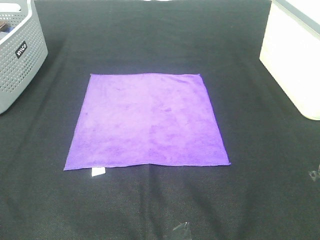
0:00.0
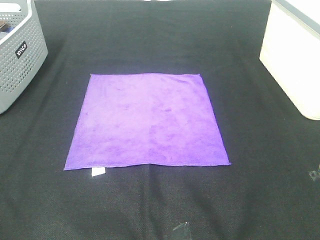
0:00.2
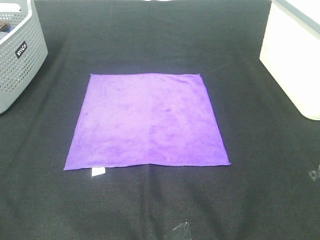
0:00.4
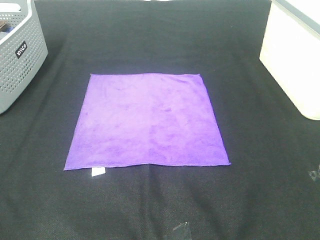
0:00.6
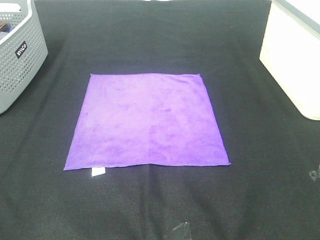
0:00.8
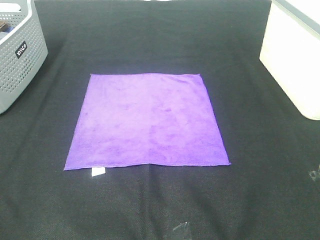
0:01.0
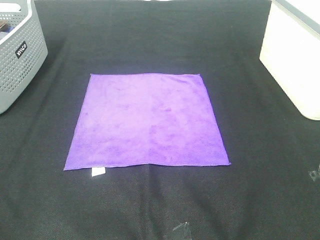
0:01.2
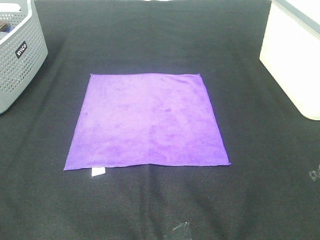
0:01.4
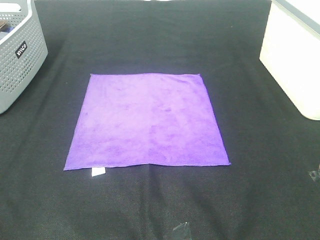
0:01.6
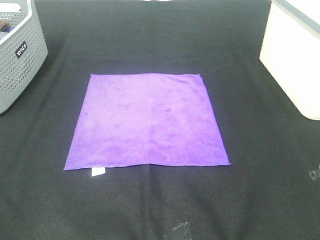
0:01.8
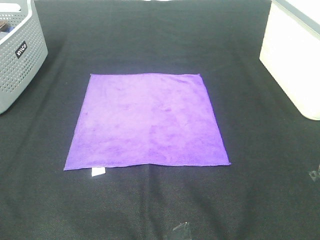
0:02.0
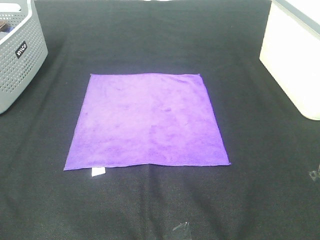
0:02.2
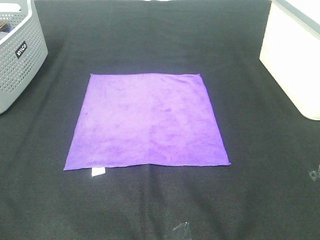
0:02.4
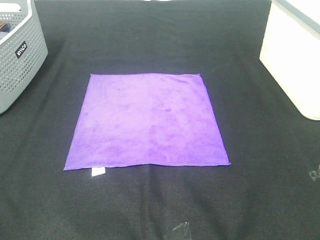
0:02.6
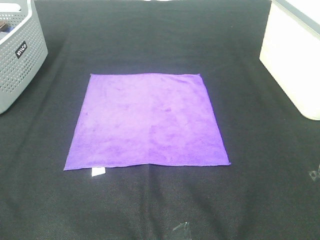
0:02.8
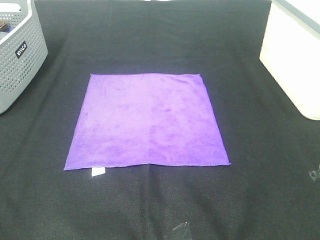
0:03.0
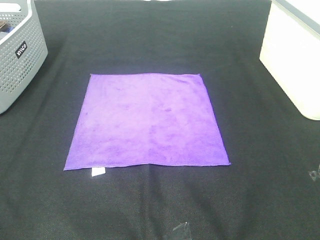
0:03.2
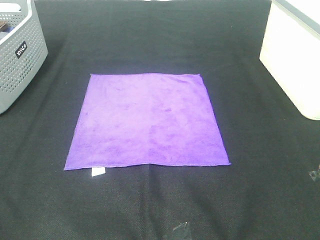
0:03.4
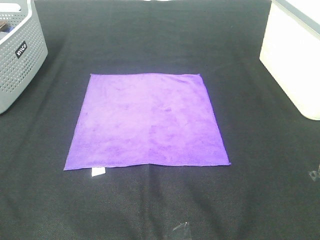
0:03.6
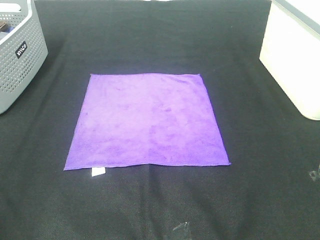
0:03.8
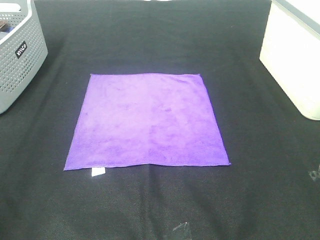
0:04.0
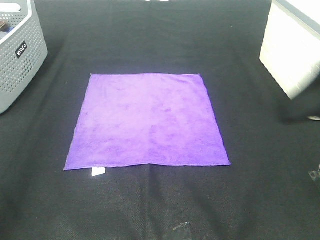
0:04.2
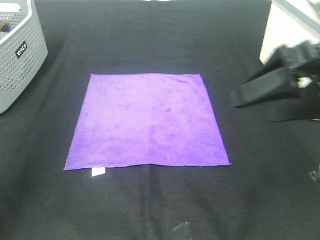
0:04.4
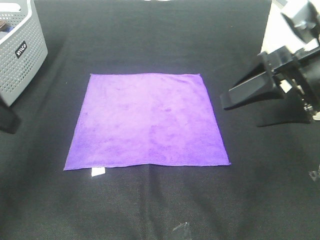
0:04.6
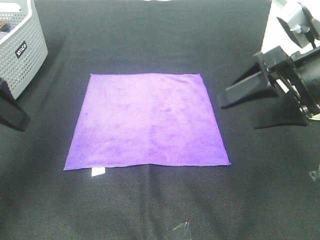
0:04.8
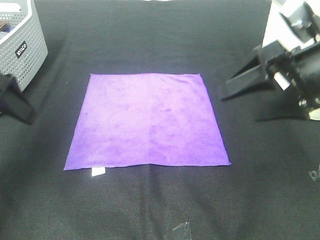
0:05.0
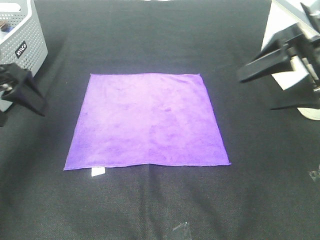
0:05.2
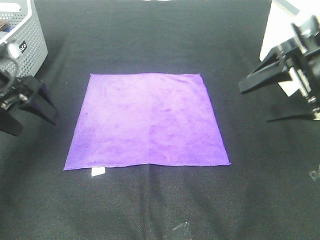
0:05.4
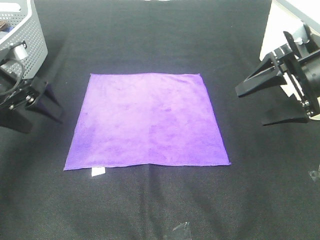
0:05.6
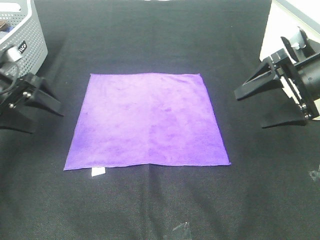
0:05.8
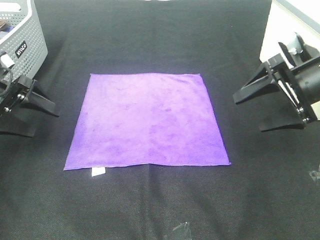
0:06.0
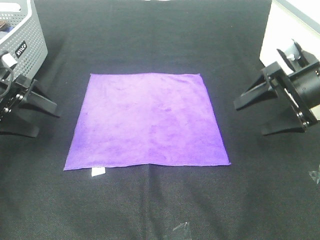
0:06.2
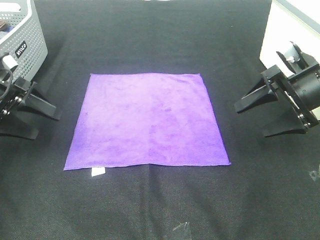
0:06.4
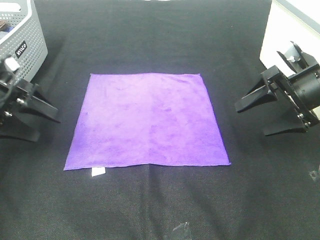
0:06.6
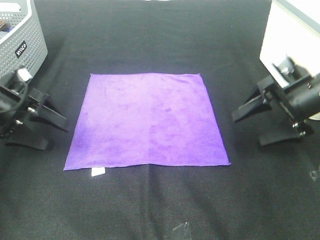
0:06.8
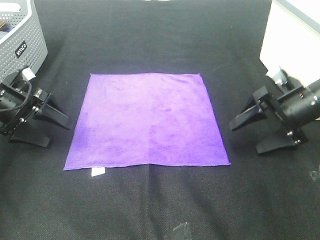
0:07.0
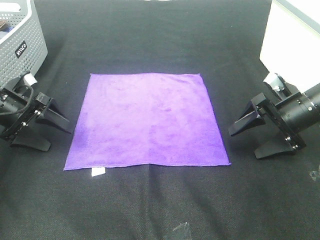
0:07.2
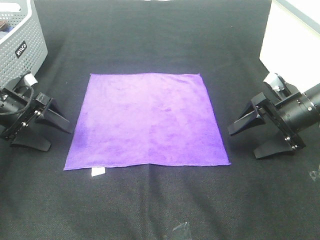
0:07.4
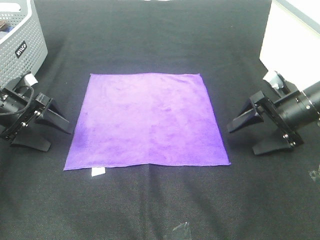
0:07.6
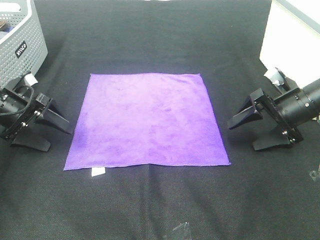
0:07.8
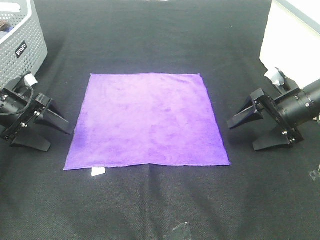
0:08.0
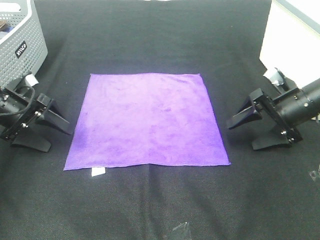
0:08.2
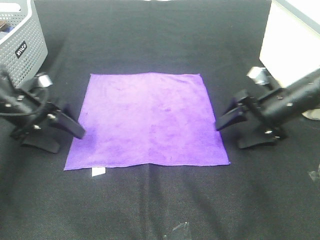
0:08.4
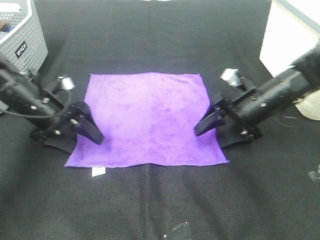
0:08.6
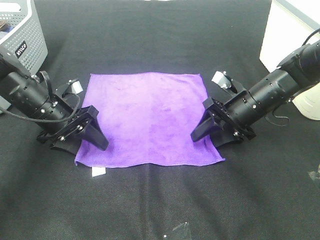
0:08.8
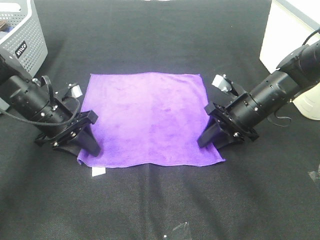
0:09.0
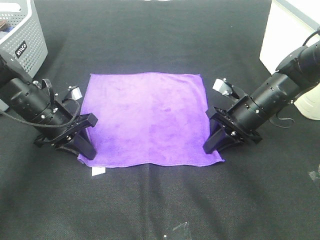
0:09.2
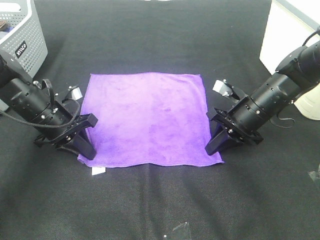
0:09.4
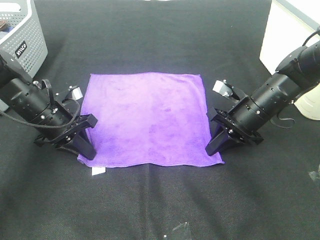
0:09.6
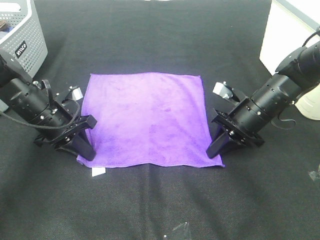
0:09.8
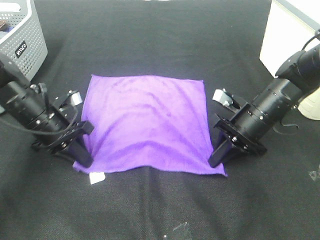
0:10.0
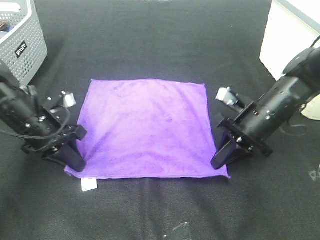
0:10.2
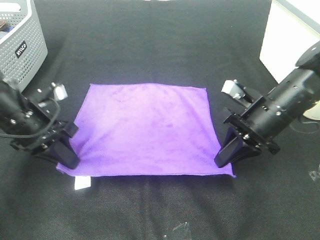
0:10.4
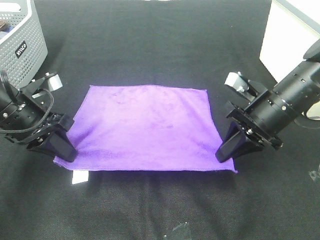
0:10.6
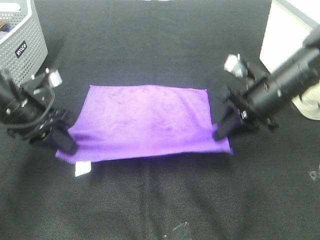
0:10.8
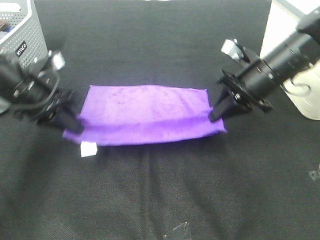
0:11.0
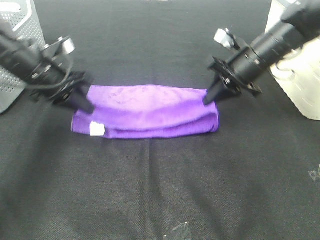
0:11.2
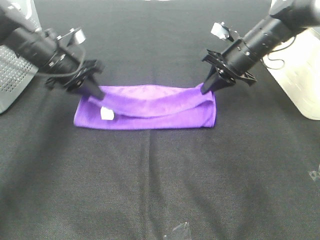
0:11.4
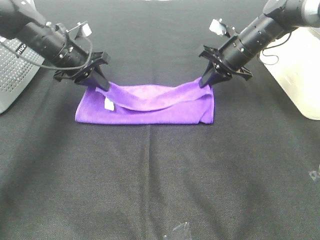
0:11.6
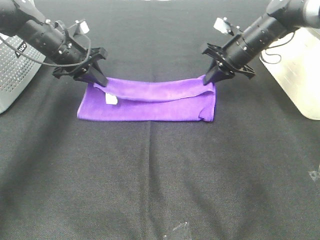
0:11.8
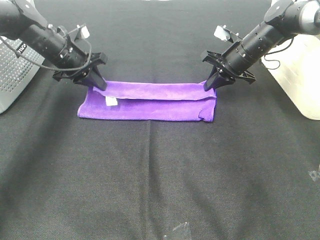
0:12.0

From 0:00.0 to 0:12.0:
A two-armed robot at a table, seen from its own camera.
Task of the whole recording: Fold towels.
Step, from 0:00.0 to 0:09.4: Left hand: grab the bottom left corner of purple towel.
Step, from 0:00.0 to 0:09.4: Right hand: grab the bottom right corner of purple towel.
From 0:00.0 to 0:03.0: Neither gripper changes place.
From 0:03.0 to 0:04.4: The grippers both shift forward by approximately 20 cm.
From 0:04.4 to 0:06.0: The left gripper goes about 20 cm forward and downward, while the right gripper heads forward, downward and to the right, covering some 15 cm.
From 0:06.0 to 0:07.6: The right gripper is displaced downward by about 10 cm. The left gripper moves roughly 5 cm.
From 0:07.6 to 0:09.0: The right gripper goes some 10 cm to the left, and closes up. The left gripper shifts roughly 10 cm to the right, and closes.
From 0:09.0 to 0:10.4: Both grippers travel together backward, approximately 5 cm. The right gripper closes up.
From 0:10.4 to 0:12.0: Both grippers move forward, about 20 cm.

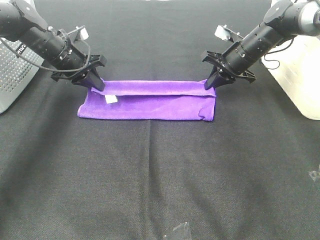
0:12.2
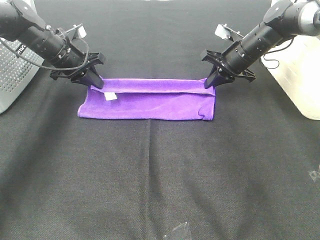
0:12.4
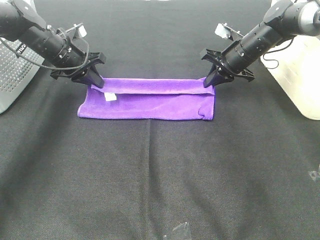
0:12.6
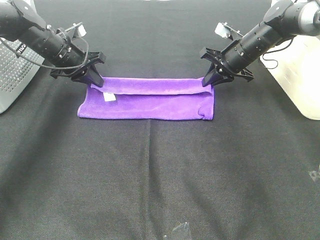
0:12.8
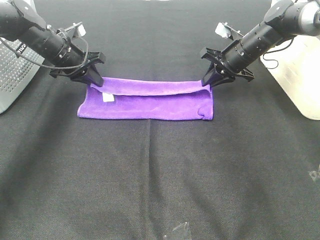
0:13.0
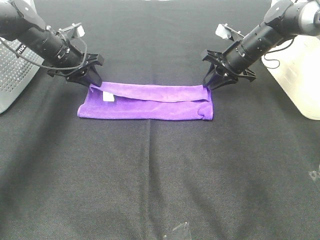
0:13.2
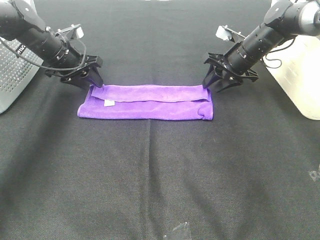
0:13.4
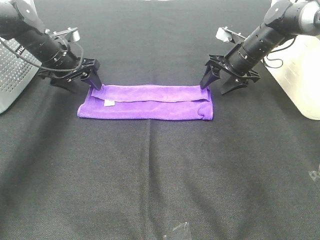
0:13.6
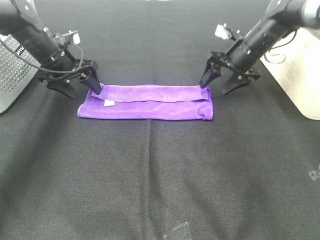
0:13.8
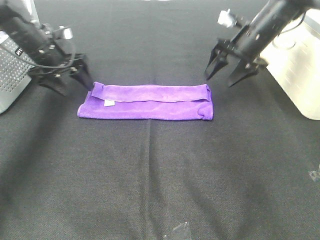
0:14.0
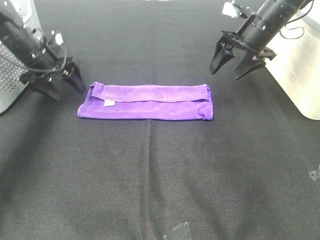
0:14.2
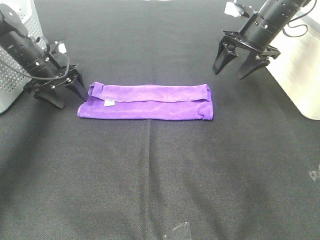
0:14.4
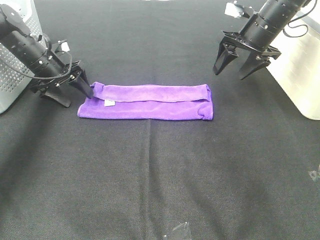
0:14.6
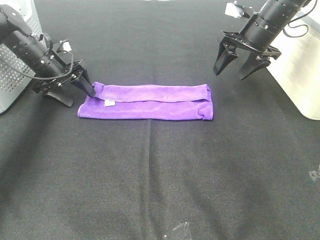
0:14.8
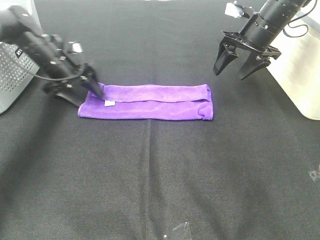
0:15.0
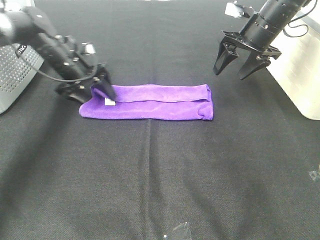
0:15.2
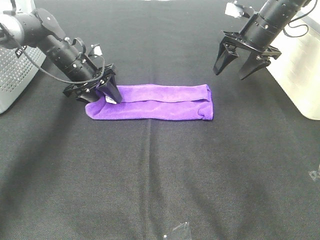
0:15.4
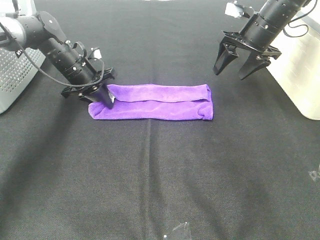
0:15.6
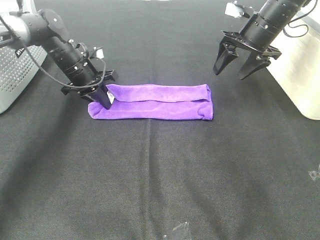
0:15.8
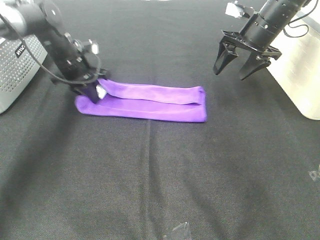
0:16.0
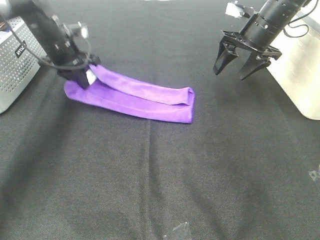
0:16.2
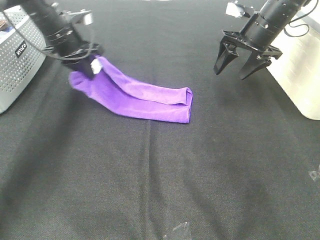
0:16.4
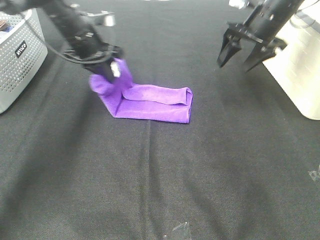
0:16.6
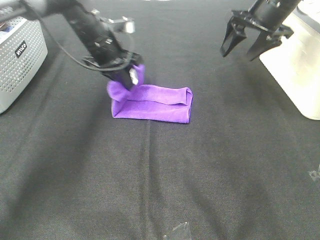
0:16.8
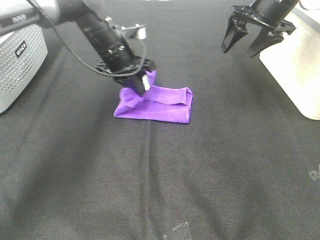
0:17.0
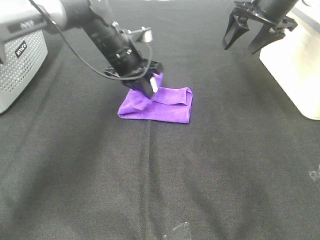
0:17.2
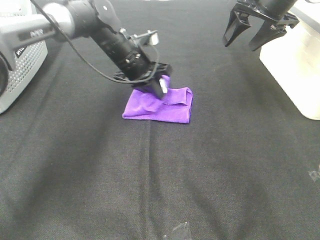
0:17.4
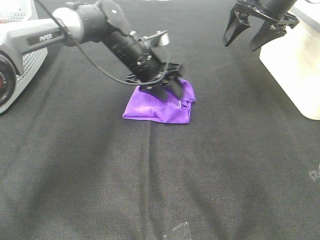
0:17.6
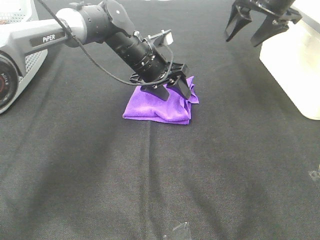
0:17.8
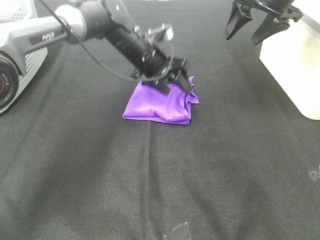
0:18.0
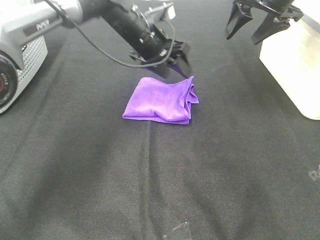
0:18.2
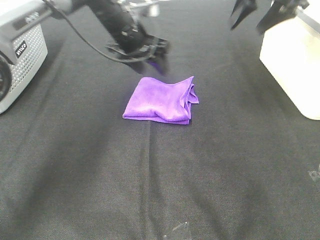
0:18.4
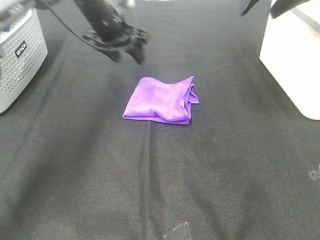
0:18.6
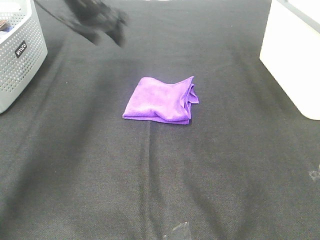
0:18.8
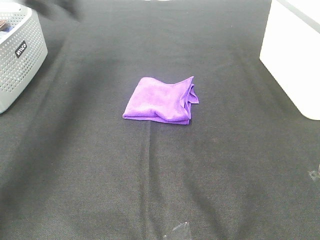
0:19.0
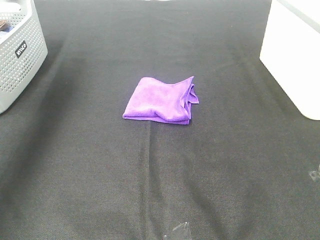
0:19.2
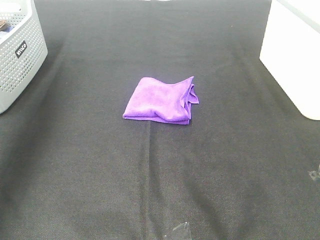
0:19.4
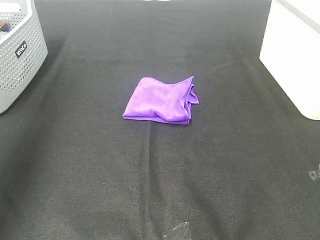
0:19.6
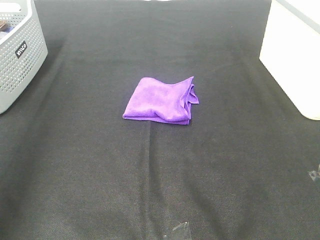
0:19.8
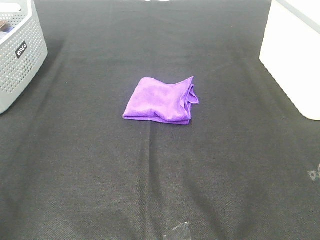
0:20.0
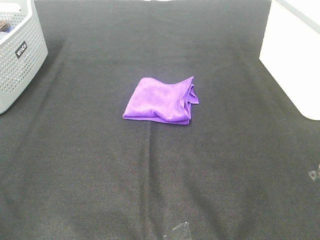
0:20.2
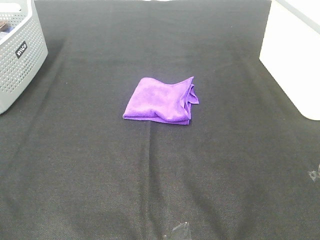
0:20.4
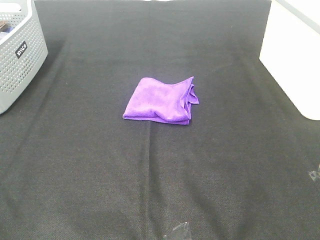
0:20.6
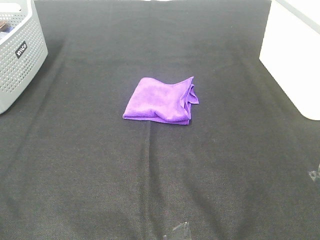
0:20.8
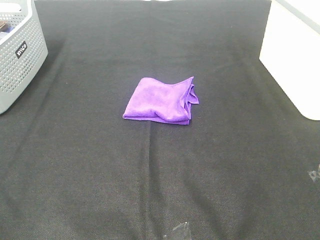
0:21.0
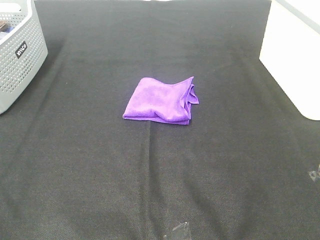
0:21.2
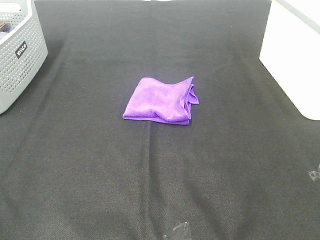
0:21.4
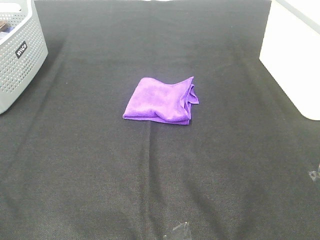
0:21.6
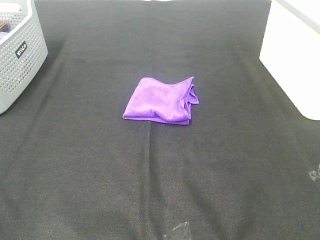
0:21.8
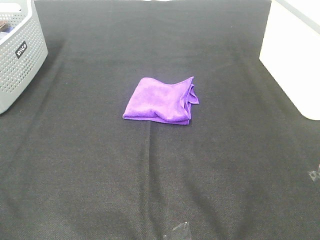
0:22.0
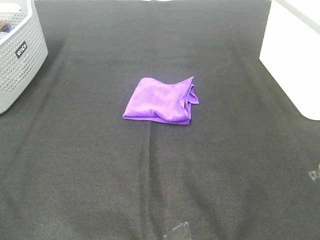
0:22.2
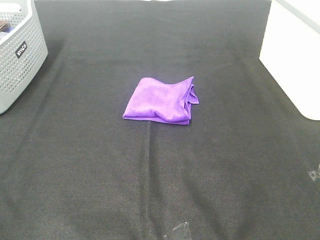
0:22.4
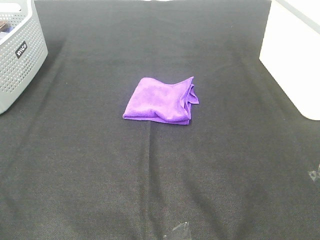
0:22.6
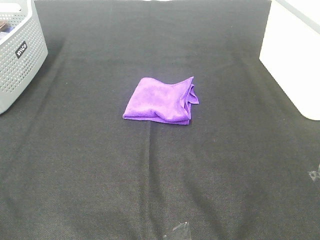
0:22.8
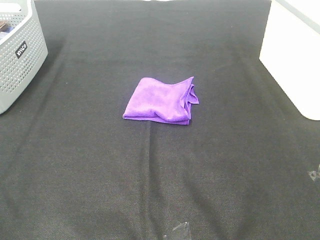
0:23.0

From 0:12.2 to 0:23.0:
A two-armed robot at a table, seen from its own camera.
Task of the whole recording: Fold towels.
Step, from 0:13.2 to 0:17.4: Left hand: fold the purple towel from left to right.
From 0:12.2 to 0:13.8: The left gripper opens up. Meanwhile the right gripper opens.
From 0:13.8 to 0:15.2: The left gripper moves roughly 5 cm; the right gripper shifts roughly 5 cm upward.
From 0:15.2 to 0:16.8: The left gripper moves to the right and upward, approximately 10 cm, and closes its fingers.
From 0:16.8 to 0:18.4: The right gripper shifts some 5 cm upward. The left gripper opens.
From 0:18.4 to 0:20.0: The left gripper is displaced backward, to the left and upward by approximately 50 cm. Meanwhile the right gripper is displaced backward by about 40 cm.
From 0:21.4 to 0:23.0: Neither gripper changes place.
